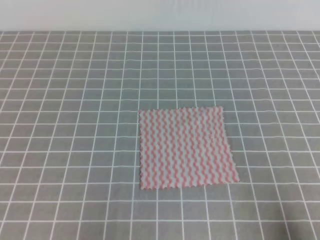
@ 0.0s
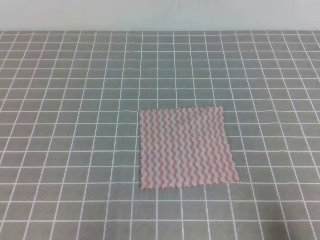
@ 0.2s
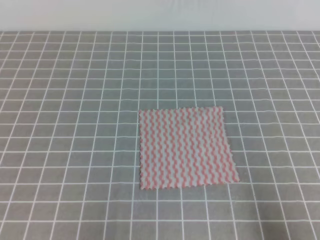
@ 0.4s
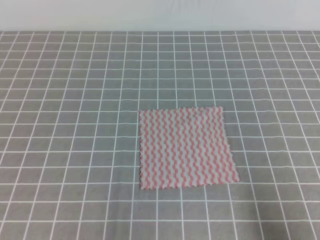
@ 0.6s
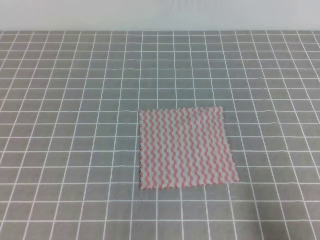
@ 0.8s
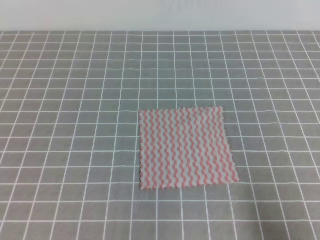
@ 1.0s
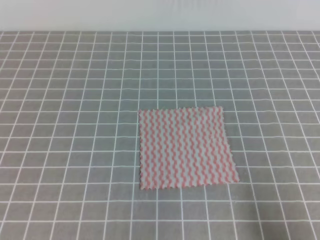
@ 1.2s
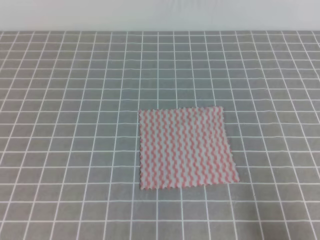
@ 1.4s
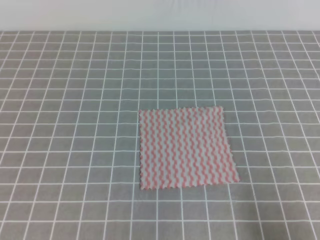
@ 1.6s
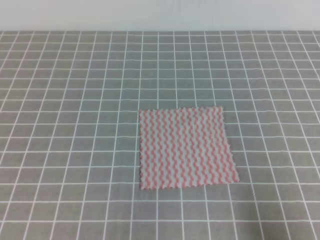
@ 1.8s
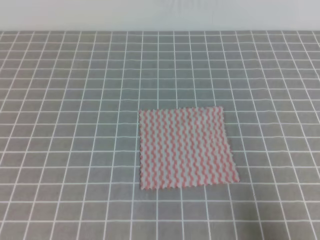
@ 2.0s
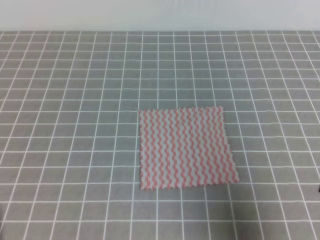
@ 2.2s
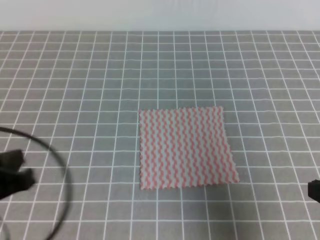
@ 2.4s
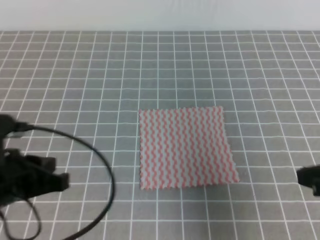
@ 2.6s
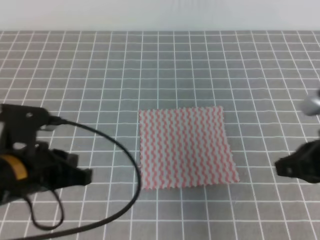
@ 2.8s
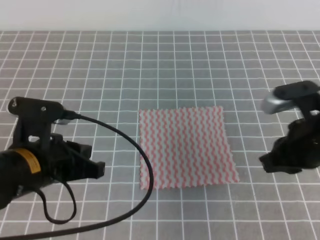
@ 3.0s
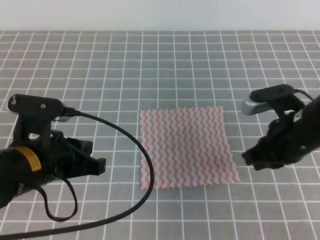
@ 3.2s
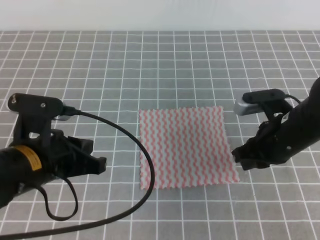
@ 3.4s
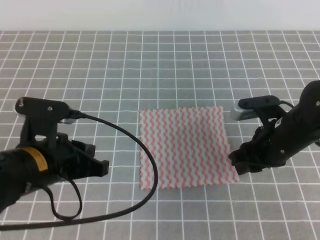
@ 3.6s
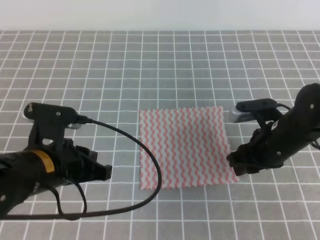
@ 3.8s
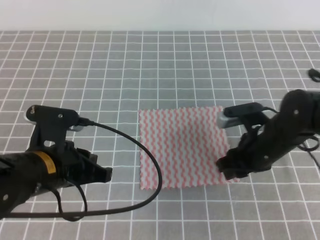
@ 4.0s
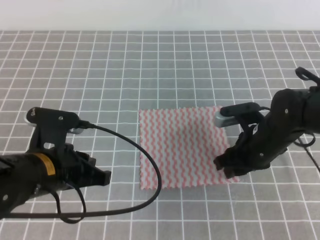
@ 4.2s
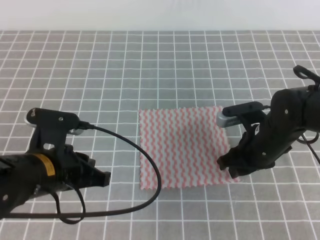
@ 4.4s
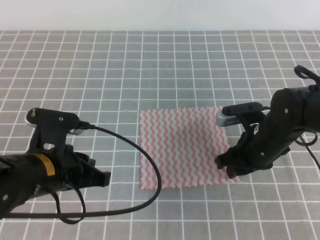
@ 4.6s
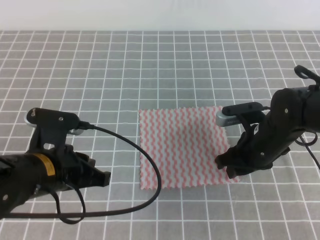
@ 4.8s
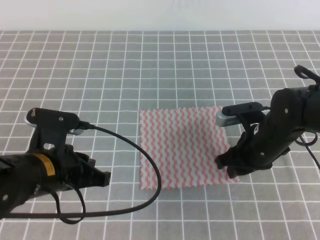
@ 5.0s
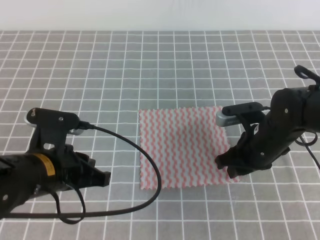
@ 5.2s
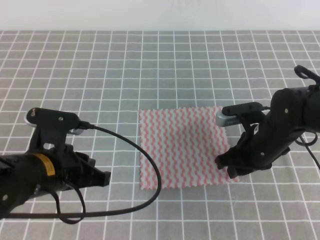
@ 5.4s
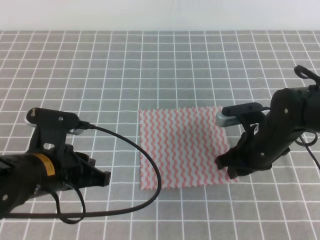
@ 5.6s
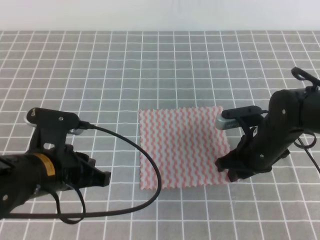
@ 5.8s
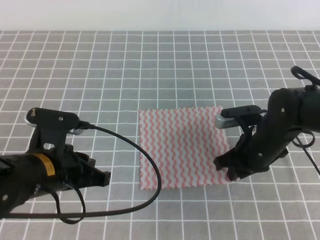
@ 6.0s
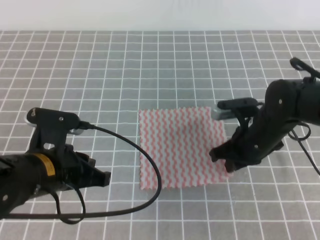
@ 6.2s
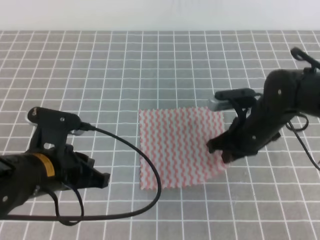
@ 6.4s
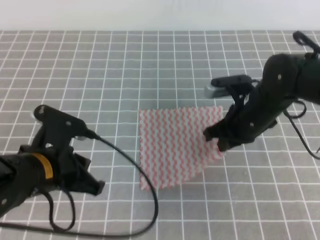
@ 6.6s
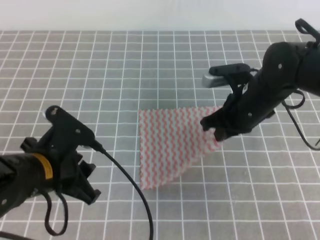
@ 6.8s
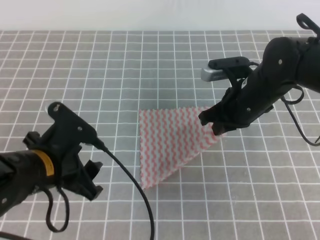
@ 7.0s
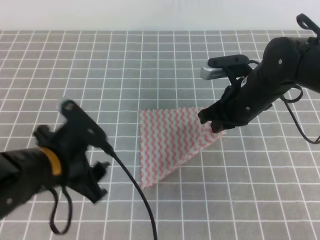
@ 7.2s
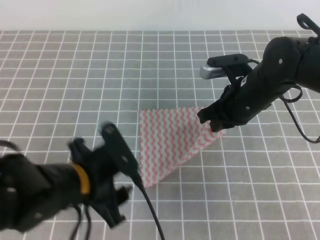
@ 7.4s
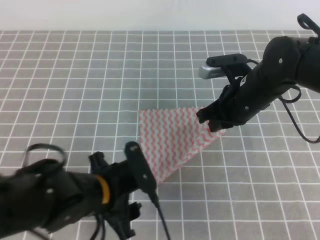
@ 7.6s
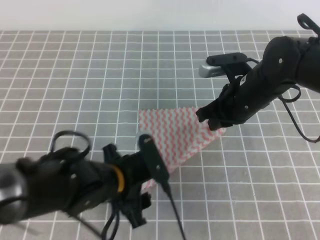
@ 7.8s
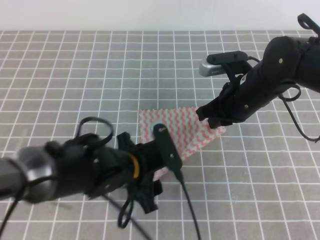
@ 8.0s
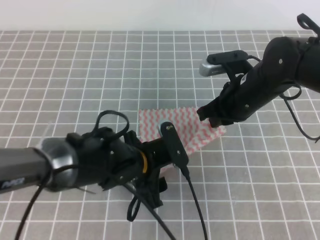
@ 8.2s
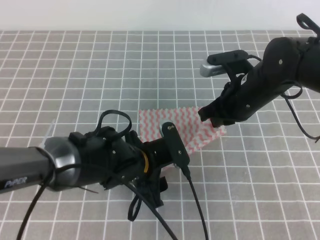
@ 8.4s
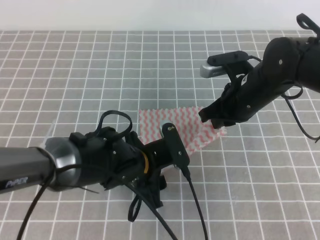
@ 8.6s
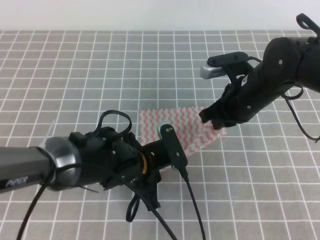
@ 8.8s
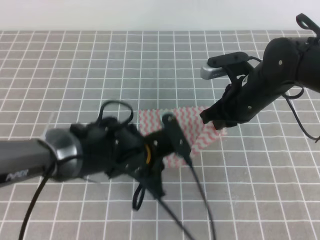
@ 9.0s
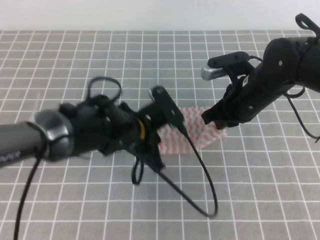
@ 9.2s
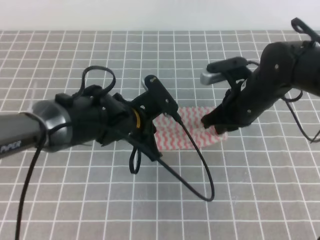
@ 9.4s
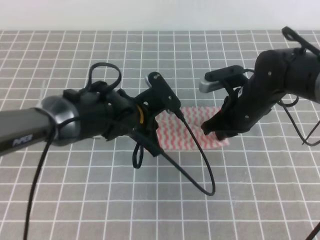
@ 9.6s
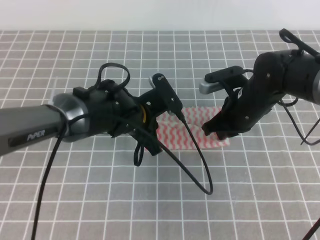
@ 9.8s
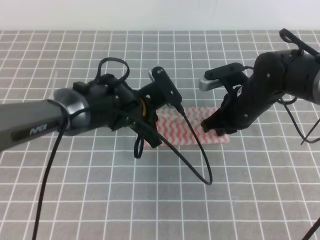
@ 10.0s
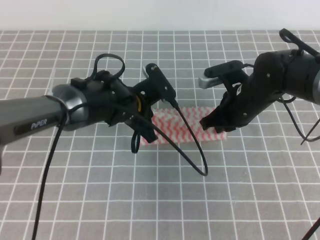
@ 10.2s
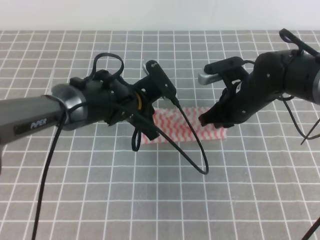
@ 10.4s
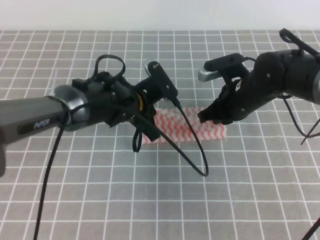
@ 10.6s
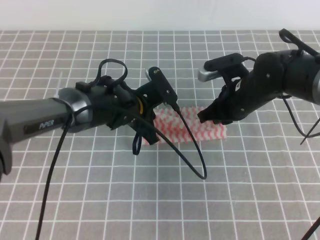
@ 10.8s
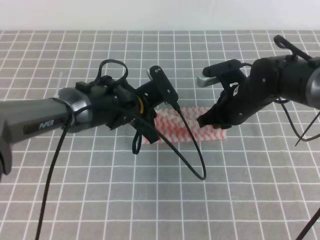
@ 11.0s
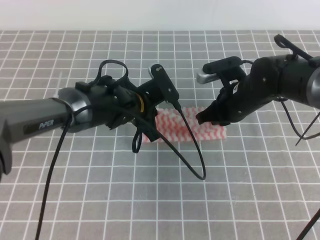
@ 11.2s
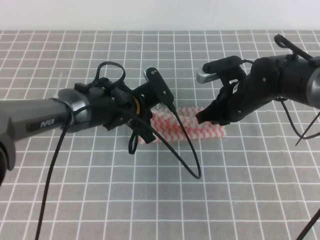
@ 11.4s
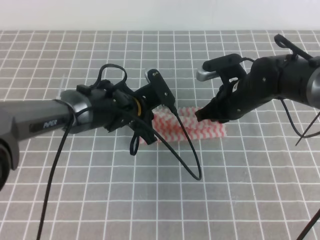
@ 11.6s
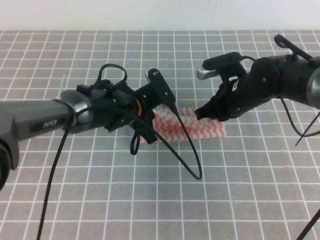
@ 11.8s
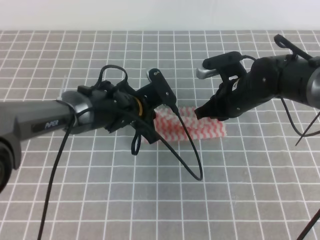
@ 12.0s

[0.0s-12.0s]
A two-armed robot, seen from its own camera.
Step, 0.0s to 8.8s: Fold the towel upwards with the both gripper.
1.6s to 3.0s: The left gripper moves forward and to the right, approximately 15 cm; the right gripper is displaced forward and to the left by approximately 20 cm.
3.0s to 4.4s: The right gripper heads downward, forward and to the left, covering about 15 cm, and opens its fingers.
4.4s to 6.0s: The right gripper closes.
6.0s to 7.6s: The left gripper heads to the right, covering approximately 5 cm, and opens up; the right gripper is displaced upward by roughly 5 cm, and closes.
7.6s to 9.0s: The left gripper heads forward and to the right, covering approximately 10 cm, and closes.
9.0s to 10.4s: The left gripper is displaced forward by approximately 10 cm.
10.4s to 12.0s: The grippers make only small movements.

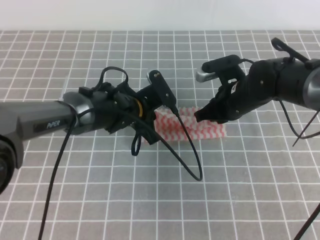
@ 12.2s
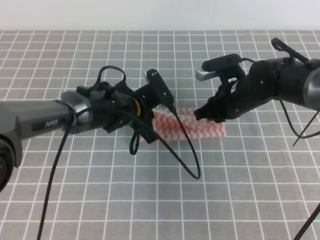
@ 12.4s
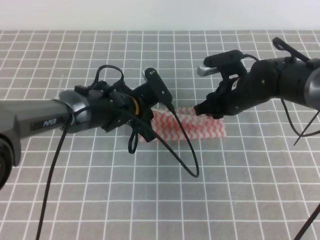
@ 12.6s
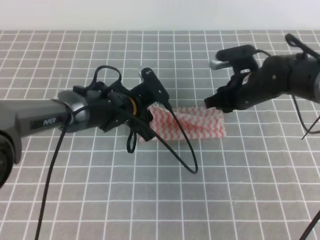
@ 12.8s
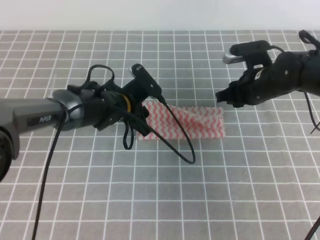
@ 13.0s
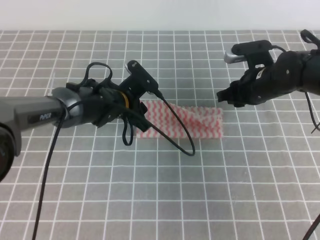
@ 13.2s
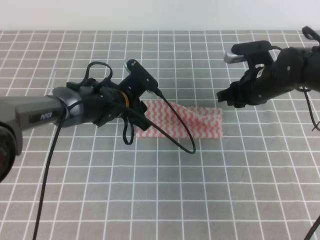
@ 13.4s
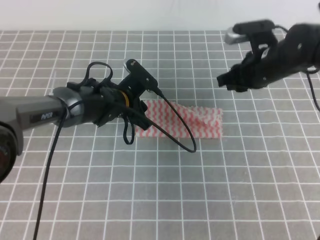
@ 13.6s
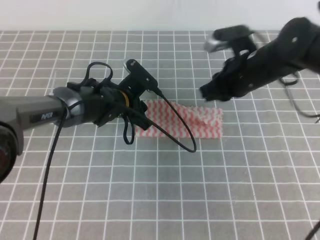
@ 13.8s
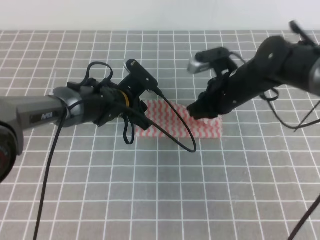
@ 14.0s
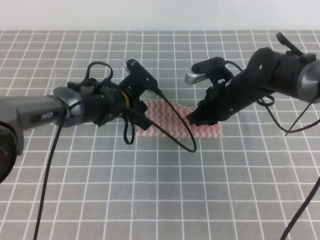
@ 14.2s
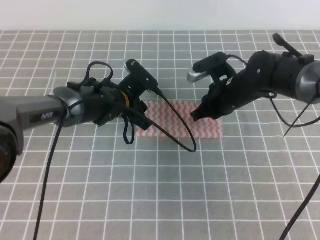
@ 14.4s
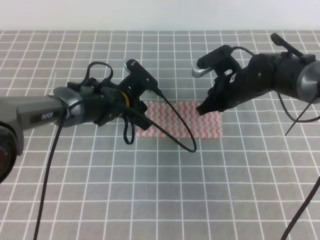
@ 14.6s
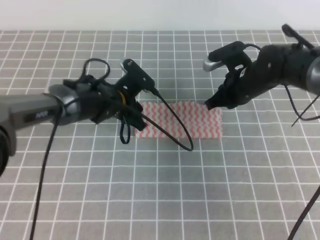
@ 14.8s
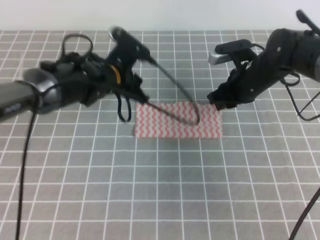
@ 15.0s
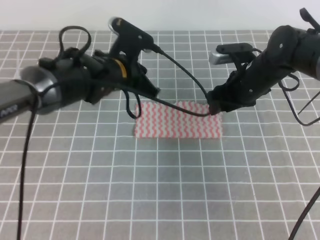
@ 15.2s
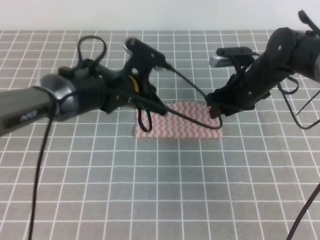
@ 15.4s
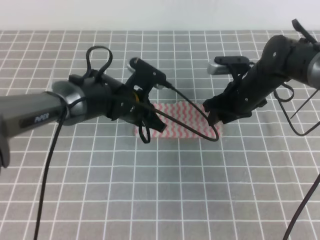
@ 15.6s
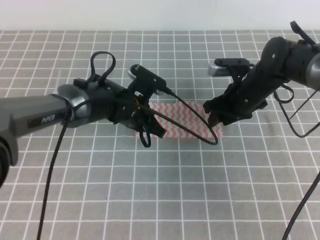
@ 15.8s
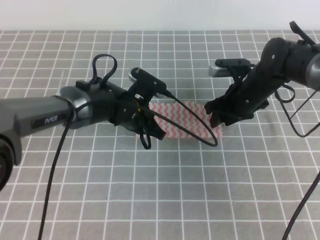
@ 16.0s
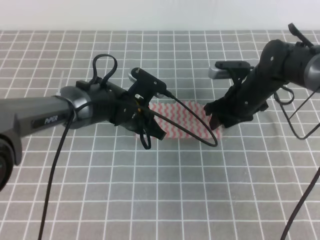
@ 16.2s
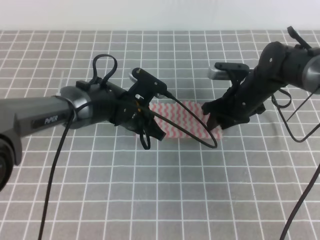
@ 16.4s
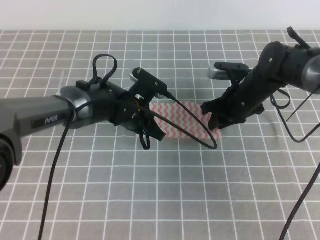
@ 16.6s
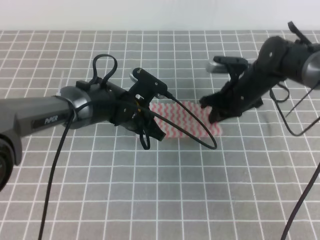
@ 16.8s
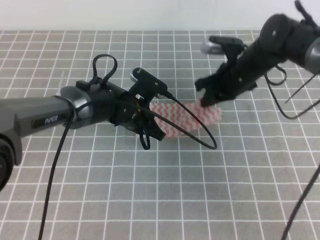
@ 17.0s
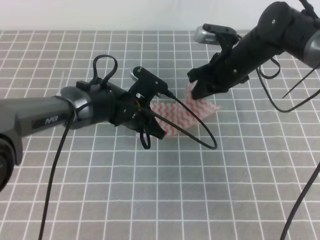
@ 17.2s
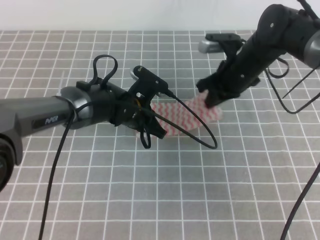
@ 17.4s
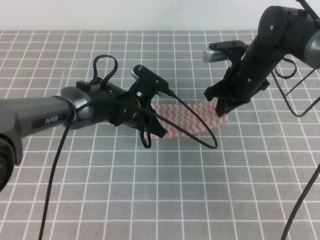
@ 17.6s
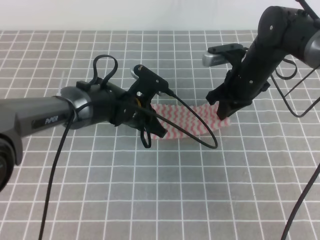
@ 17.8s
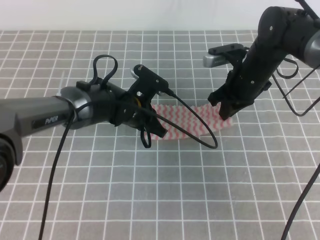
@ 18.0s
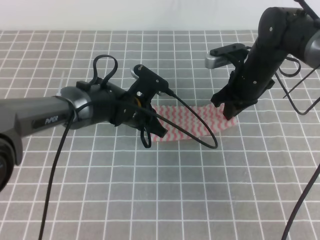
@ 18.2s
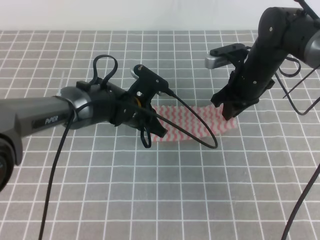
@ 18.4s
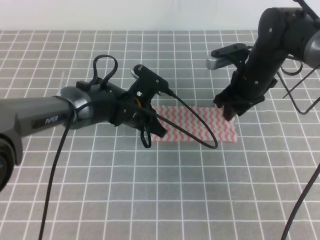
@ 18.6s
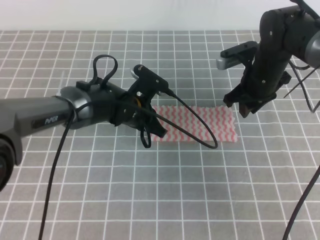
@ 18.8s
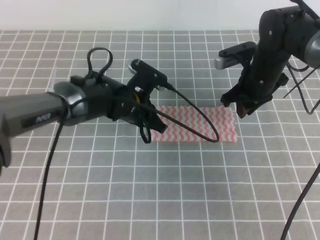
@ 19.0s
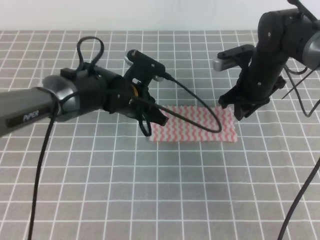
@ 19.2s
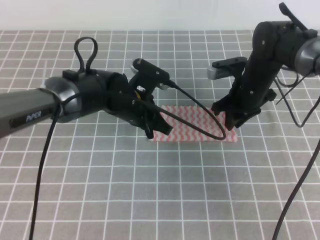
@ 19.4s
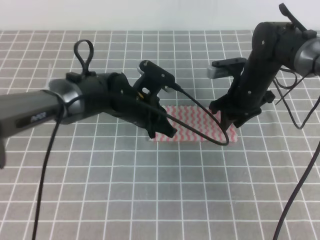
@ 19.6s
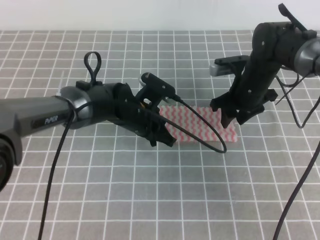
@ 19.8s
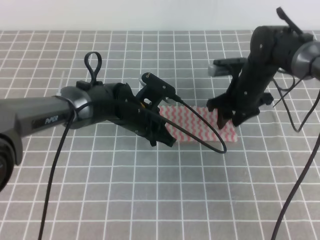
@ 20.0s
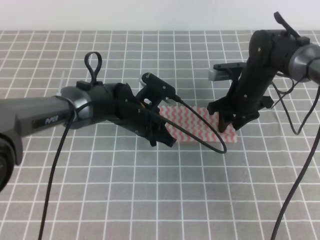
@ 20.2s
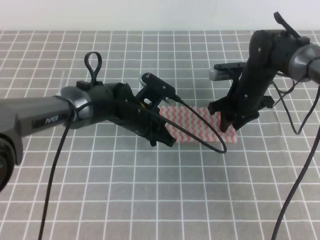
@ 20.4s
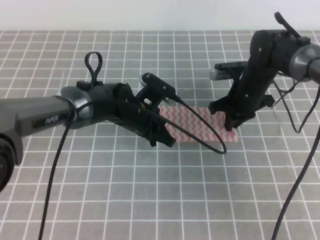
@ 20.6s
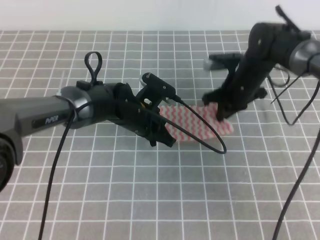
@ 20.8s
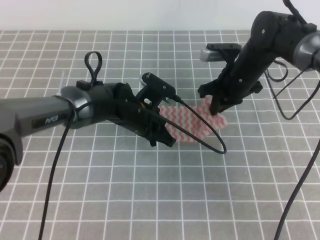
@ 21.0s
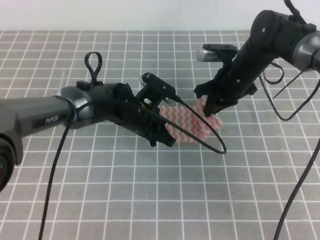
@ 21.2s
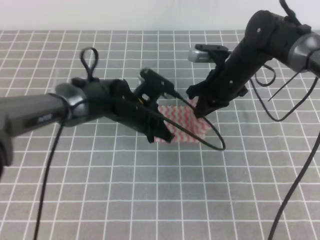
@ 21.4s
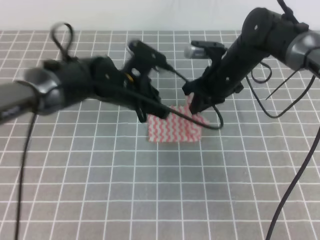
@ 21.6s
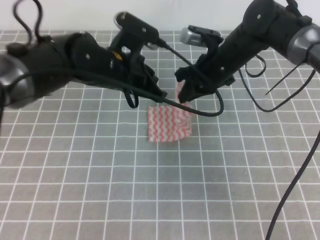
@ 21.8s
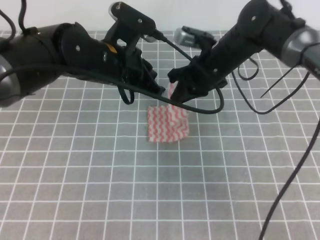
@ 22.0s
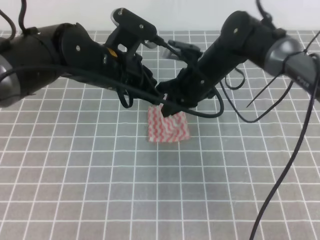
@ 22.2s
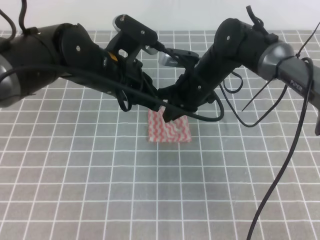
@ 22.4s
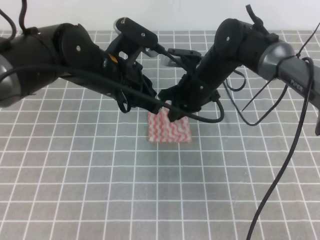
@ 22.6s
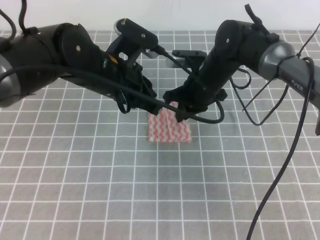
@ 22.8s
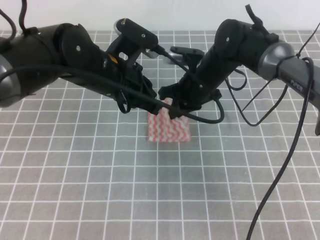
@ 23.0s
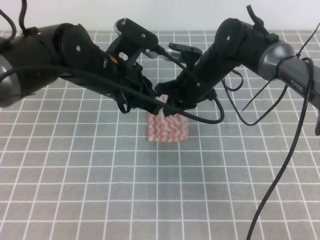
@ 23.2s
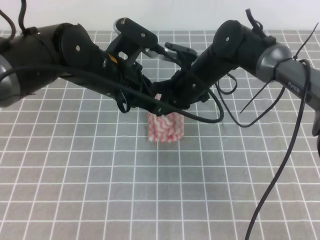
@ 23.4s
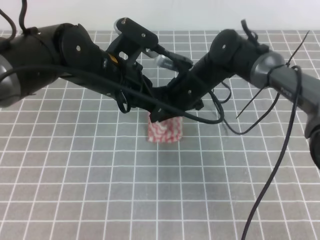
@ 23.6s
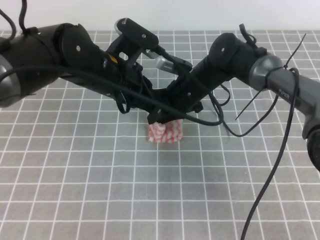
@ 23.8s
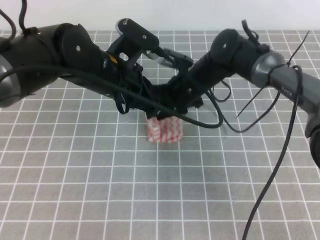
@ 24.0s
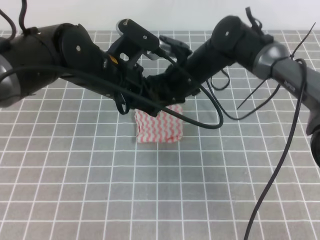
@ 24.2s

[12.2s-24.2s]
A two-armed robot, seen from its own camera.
Step, 12.2s to 14.6s: Fold the towel from right to left with the right gripper.
Step, 14.8s to 16.2s: Tidy up the towels.
12.2s to 13.8s: The left gripper opens up, while the right gripper opens and closes again.
13.8s to 15.2s: The left gripper shifts approximately 10 cm upward, and closes. The right gripper opens its fingers.
15.2s to 16.6s: The left gripper moves downward, about 5 cm, while the right gripper closes up.
16.6s to 18.2s: The right gripper goes approximately 5 cm upward, and closes up.
18.2s to 19.8s: The right gripper opens its fingers.
19.8s to 21.2s: The right gripper closes.
21.2s to 22.6s: The right gripper heads to the left, covering approximately 5 cm; the left gripper travels upward by some 15 cm.
22.6s to 24.2s: The right gripper opens up.
